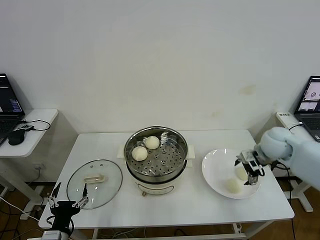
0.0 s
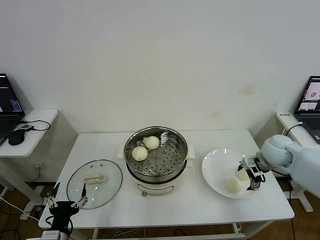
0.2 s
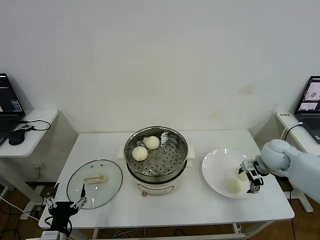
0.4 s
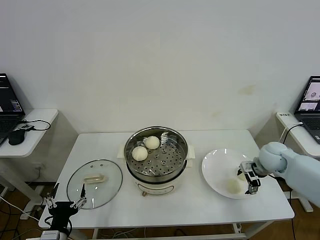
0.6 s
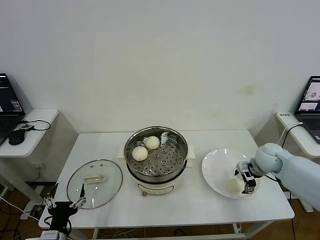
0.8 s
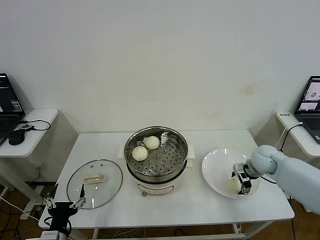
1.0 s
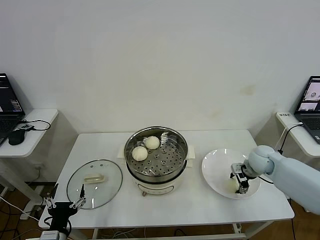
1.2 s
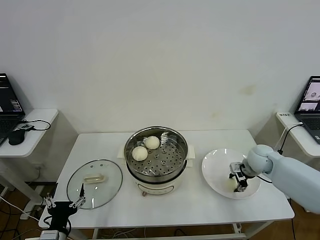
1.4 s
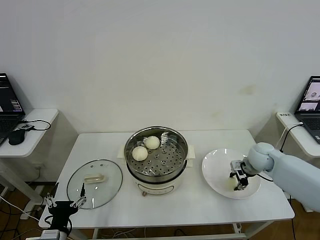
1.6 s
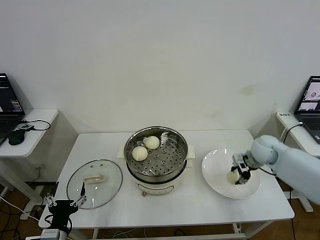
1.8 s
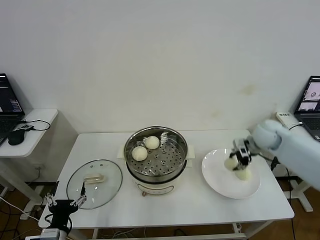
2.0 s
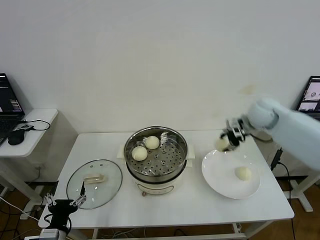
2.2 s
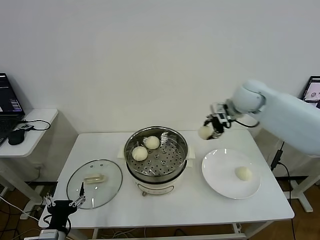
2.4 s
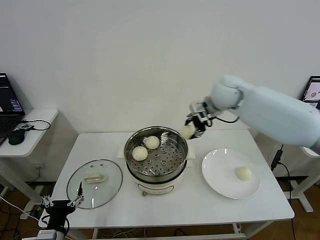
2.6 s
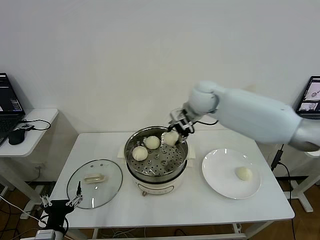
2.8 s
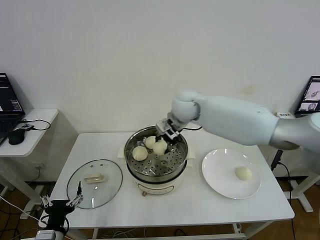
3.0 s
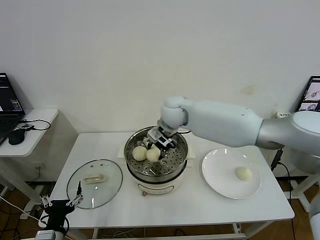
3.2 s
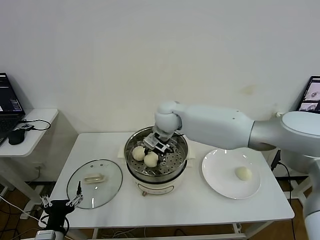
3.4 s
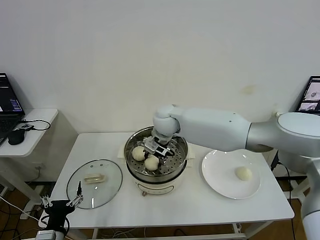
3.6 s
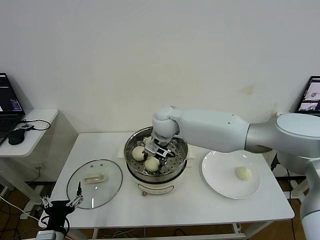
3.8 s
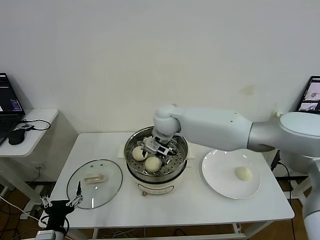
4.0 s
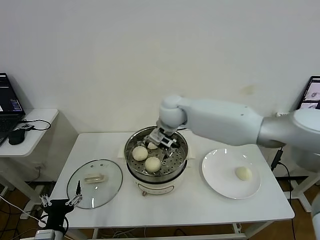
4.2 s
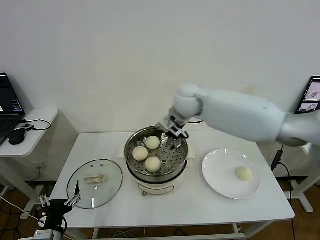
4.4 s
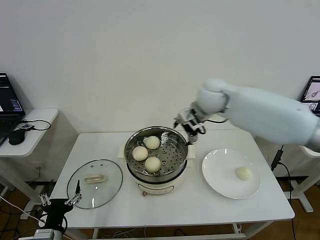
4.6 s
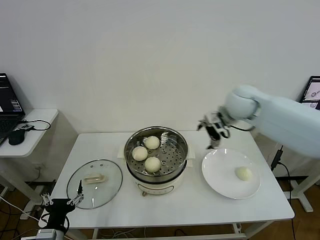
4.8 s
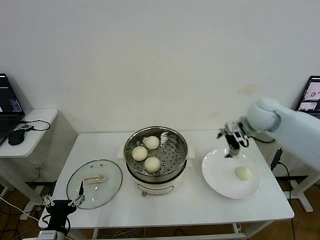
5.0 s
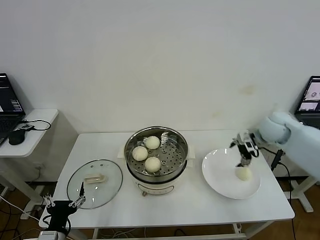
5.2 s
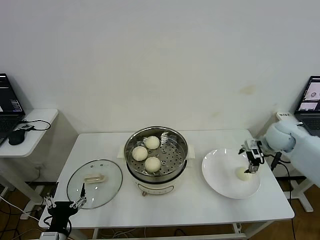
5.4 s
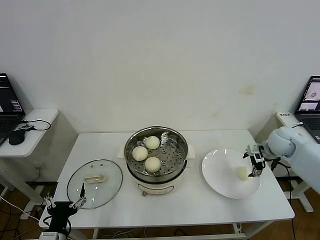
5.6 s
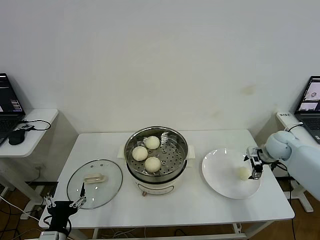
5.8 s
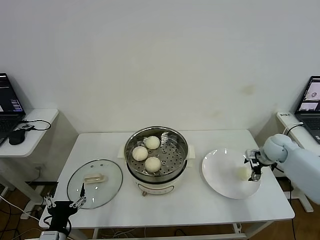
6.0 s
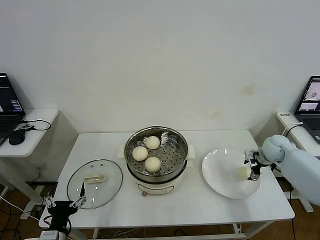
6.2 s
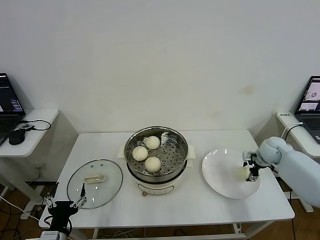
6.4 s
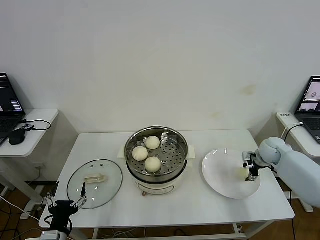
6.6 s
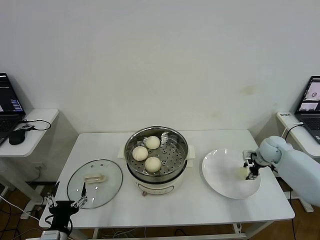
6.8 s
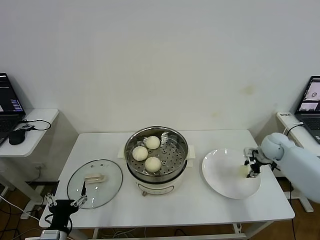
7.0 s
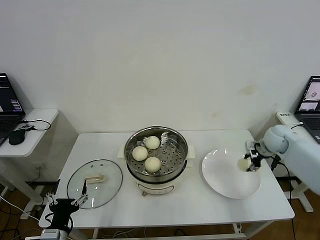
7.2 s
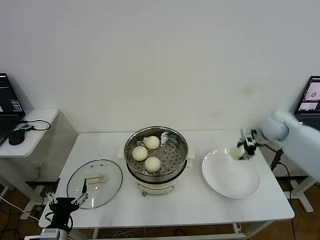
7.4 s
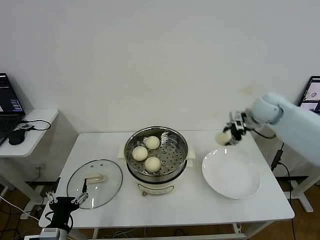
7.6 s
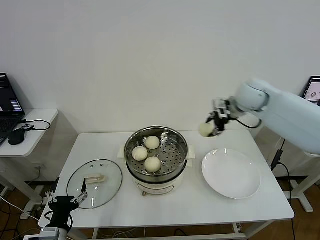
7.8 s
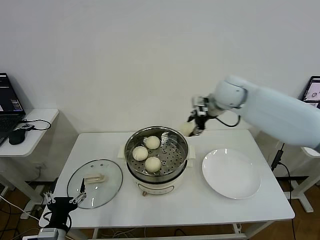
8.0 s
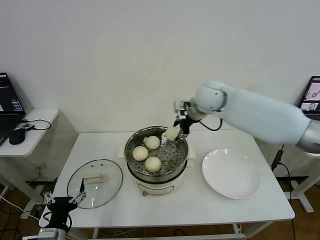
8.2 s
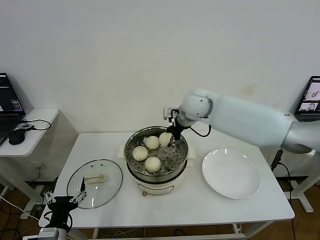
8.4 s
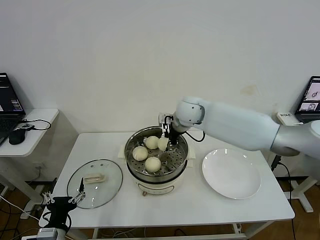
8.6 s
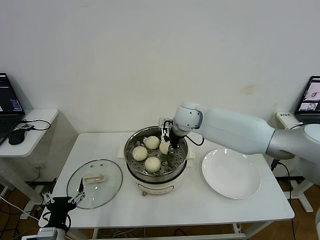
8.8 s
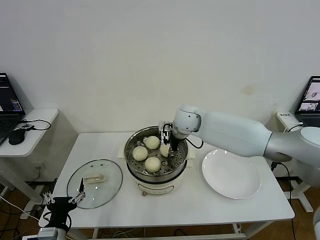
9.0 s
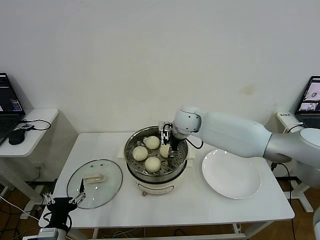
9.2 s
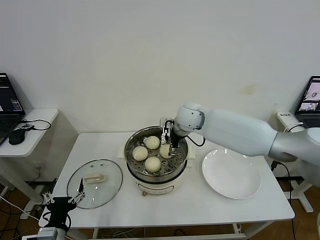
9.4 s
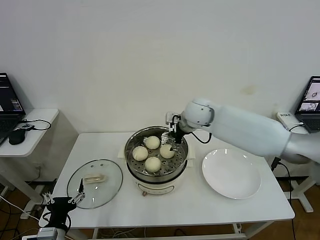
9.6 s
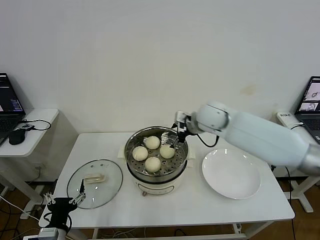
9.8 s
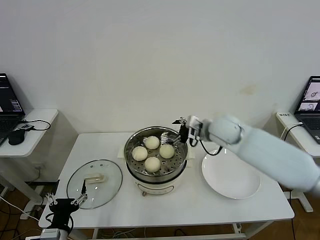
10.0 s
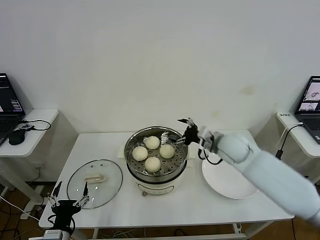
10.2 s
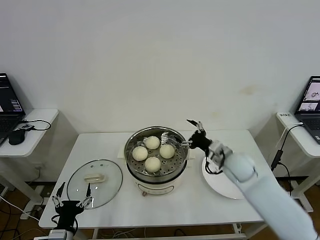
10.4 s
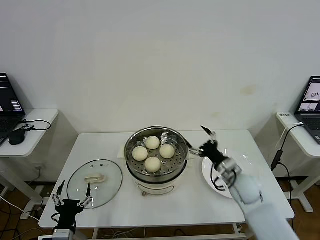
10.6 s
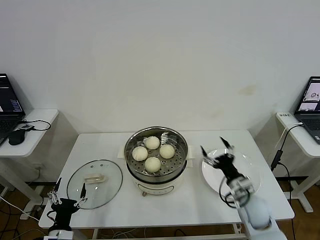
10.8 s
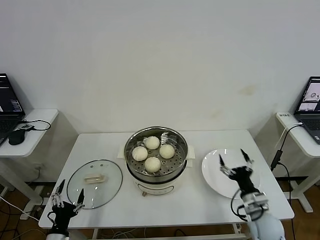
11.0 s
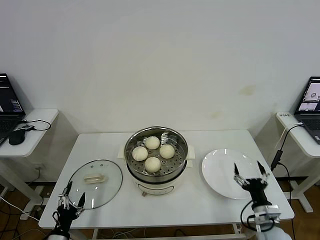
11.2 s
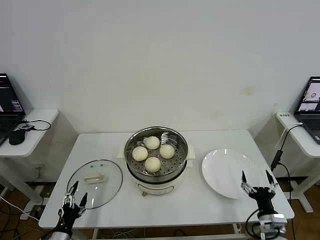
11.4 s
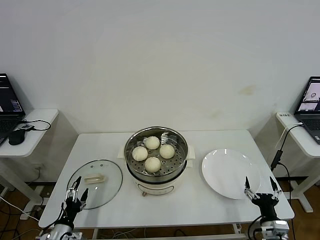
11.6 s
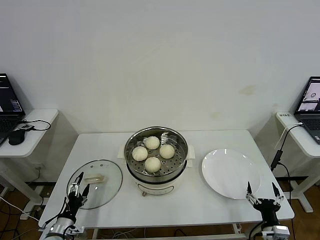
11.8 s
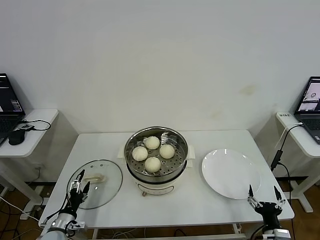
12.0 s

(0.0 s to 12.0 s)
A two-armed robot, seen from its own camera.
Step, 0.0 s - 1.6 s: Grasp the baozi in the plate with right gripper.
Step, 1.8 s - 4.0 s: Place the baozi on the steamer with right gripper.
Step, 4.2 s - 6.8 s: Grasp the baozi in the plate with right gripper.
Step, 7.0 s - 9.4 s: Place the baozi on the steamer with right gripper.
0.0 s - 1.6 s: The right gripper shifts roughly 10 cm downward, and closes its fingers.
1.6 s - 3.0 s: The right gripper goes about 35 cm to the left and upward.
3.0 s - 4.4 s: The right gripper goes to the left and returns, about 5 cm each way, and opens up.
4.4 s - 6.0 s: The right gripper moves to the right and downward, some 40 cm.
6.0 s - 7.6 s: The right gripper moves upward and to the left, about 20 cm, and closes up.
7.6 s - 9.0 s: The right gripper moves to the left, about 25 cm.
9.0 s - 10.4 s: The right gripper moves to the right, backward and downward, about 20 cm, and opens.
10.4 s - 12.0 s: The right gripper shifts about 35 cm backward, downward and to the right. Meanwhile the left gripper is displaced downward, forward and to the left by about 15 cm.

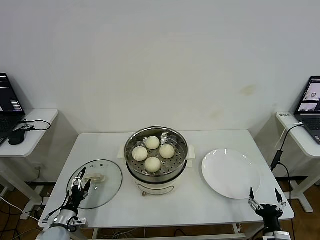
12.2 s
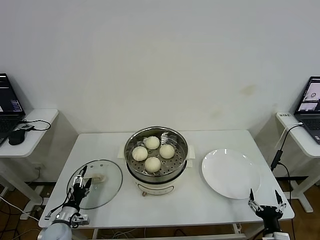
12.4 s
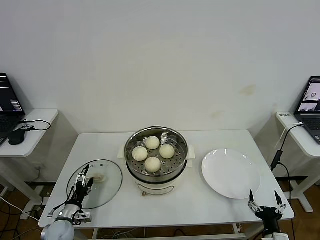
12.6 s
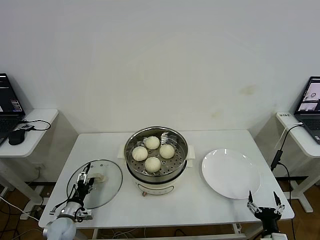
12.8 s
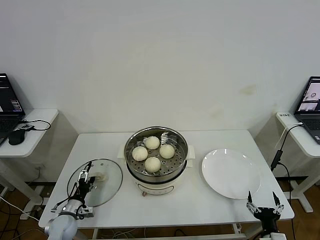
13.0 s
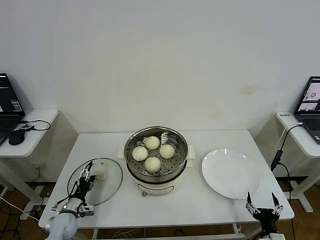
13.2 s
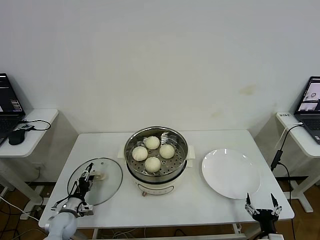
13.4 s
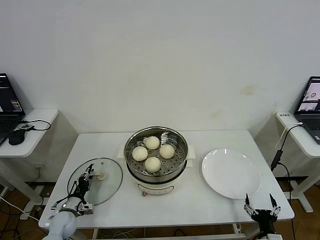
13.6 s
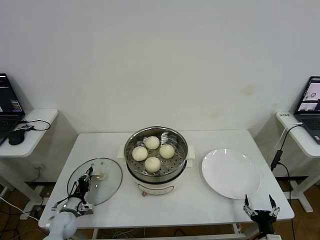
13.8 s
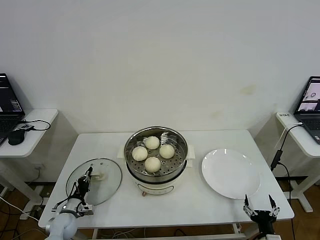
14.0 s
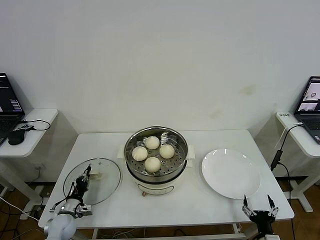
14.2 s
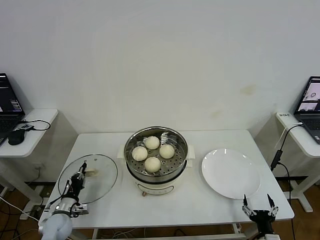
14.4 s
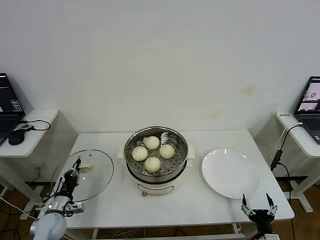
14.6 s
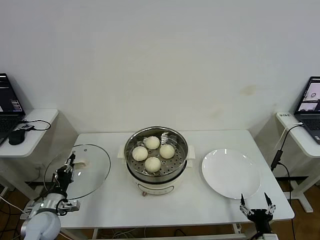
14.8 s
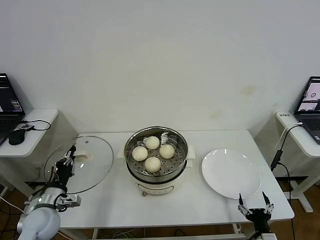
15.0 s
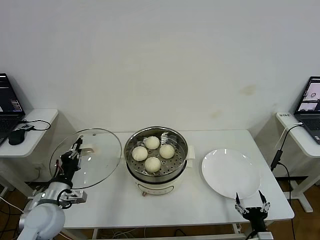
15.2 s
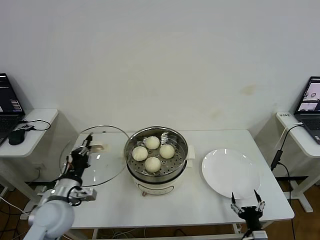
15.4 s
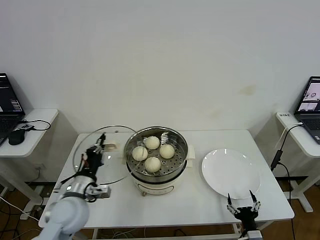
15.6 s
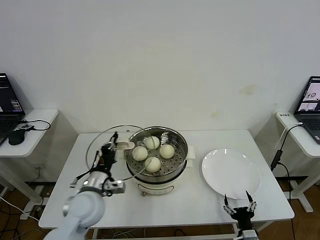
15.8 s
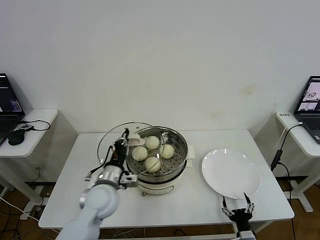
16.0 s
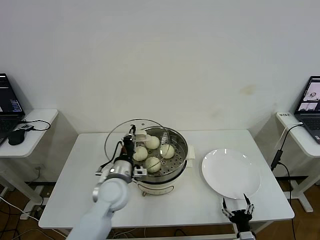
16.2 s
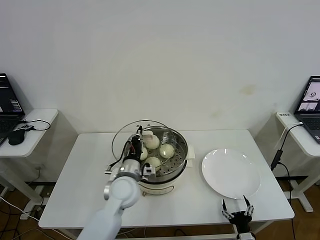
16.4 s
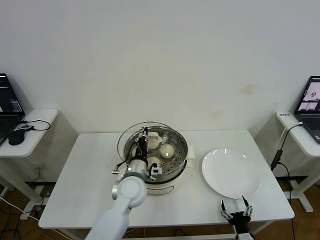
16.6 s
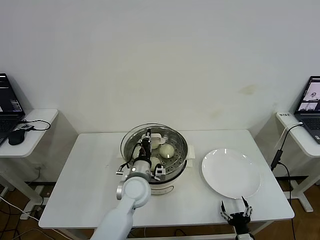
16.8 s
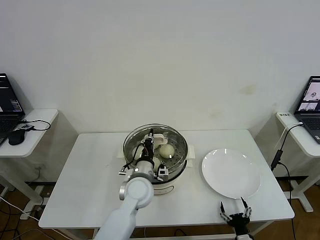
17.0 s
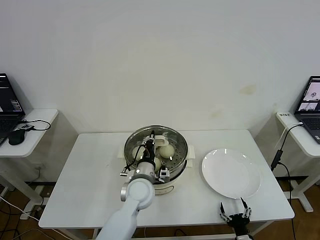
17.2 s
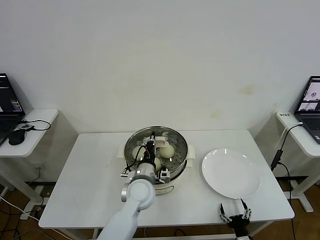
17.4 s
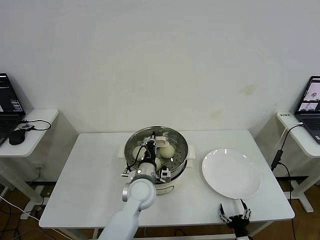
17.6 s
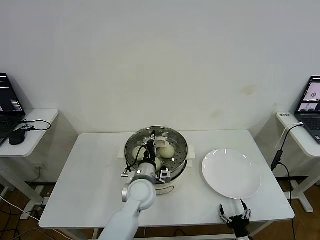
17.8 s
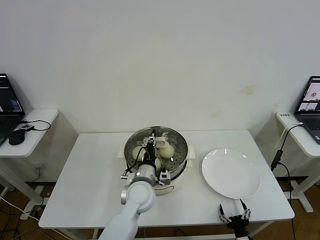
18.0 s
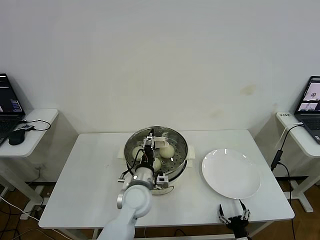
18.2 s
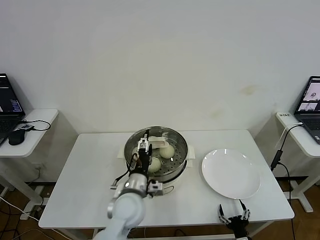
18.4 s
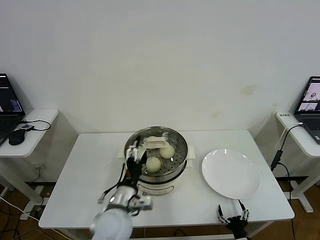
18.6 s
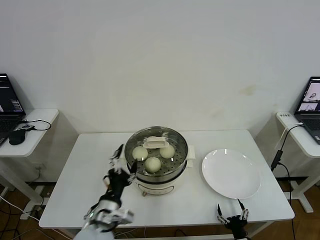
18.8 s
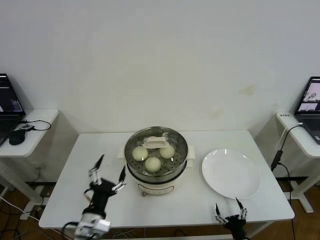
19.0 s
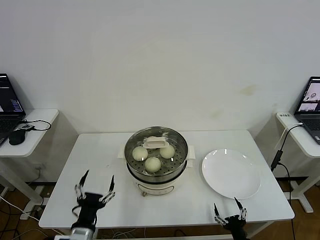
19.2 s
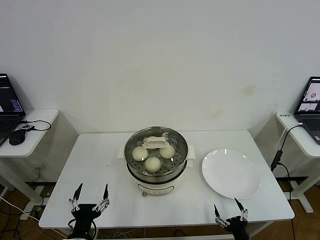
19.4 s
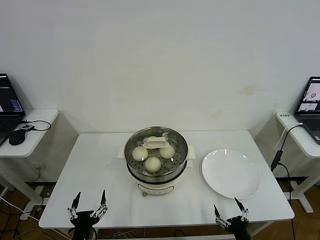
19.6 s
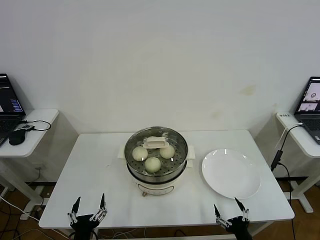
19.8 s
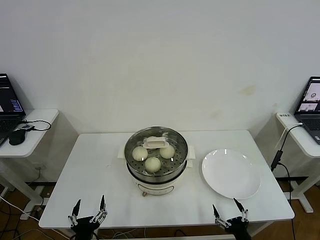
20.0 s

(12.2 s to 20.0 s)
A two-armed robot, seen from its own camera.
Step, 14.2 s - 18.2 s: Place the pot lid on the steamer with left gripper.
12.2 s - 13.8 s: The left gripper goes approximately 5 cm forward, and closes up.
13.8 s - 15.4 s: The left gripper moves upward, roughly 20 cm.
15.4 s - 16.8 s: The left gripper shifts some 25 cm to the right and forward.
16.8 s - 18.4 s: The left gripper opens up.
18.4 s - 20.0 s: The right gripper heads upward, covering approximately 5 cm, while the left gripper travels backward, to the left and downward by approximately 25 cm.

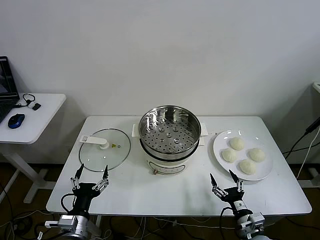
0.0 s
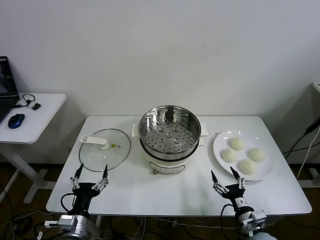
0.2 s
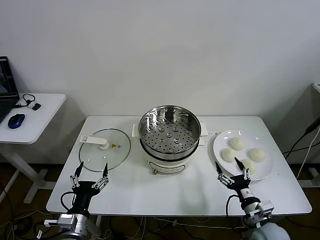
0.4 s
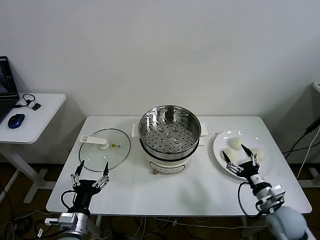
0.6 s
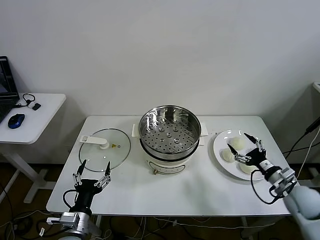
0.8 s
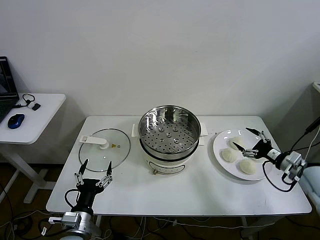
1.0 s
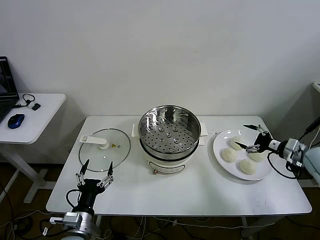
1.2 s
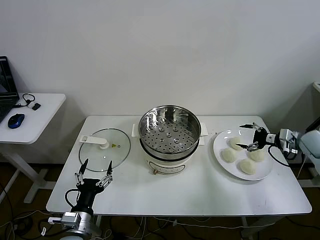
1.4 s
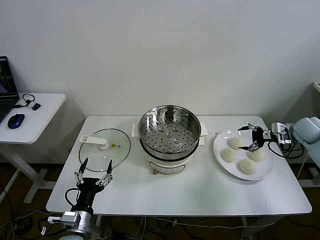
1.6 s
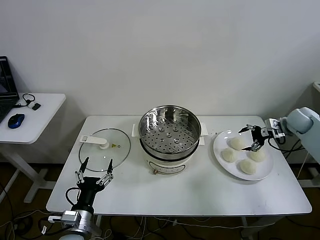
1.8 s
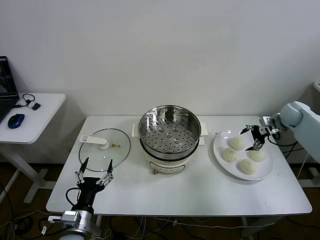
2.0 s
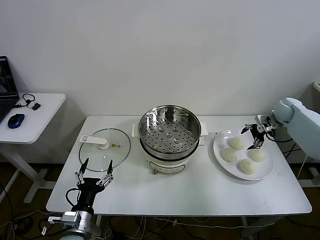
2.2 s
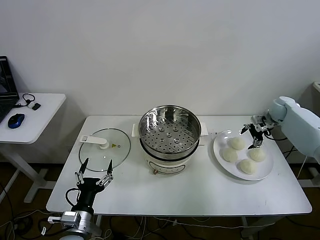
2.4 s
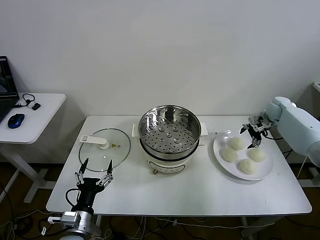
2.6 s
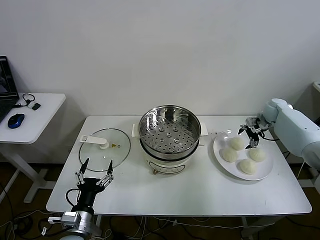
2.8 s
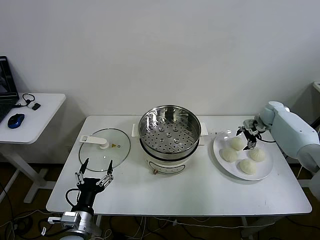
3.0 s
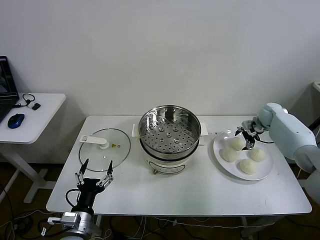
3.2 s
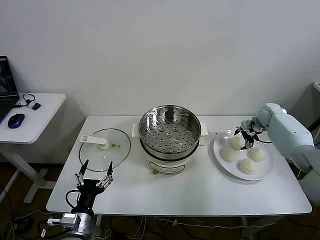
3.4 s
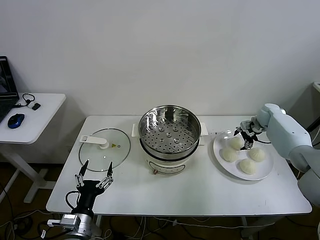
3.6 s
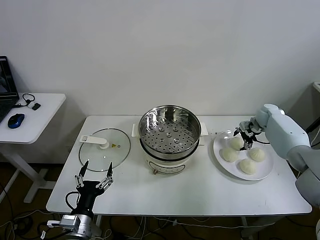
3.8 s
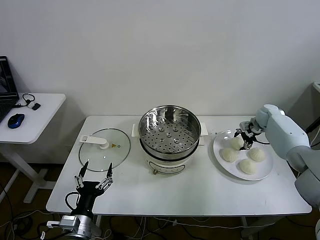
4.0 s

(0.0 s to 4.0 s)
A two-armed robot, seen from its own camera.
1.4 s - 2.6 s: The right gripper goes some 15 cm forward.
2.6 s - 4.0 s: The right gripper closes.
